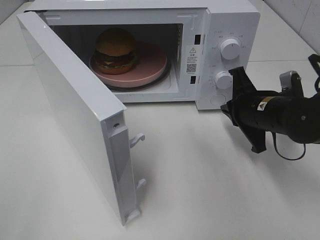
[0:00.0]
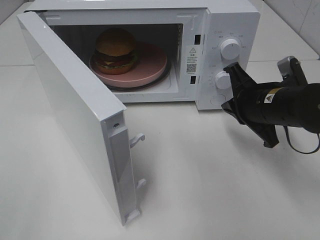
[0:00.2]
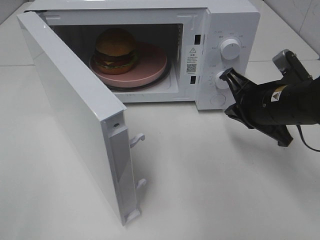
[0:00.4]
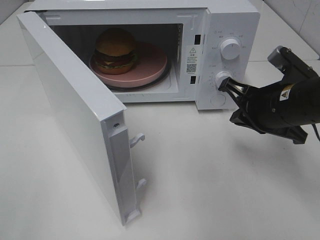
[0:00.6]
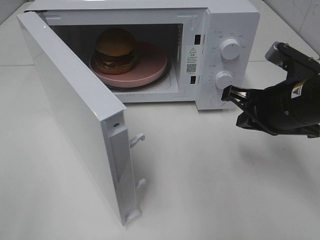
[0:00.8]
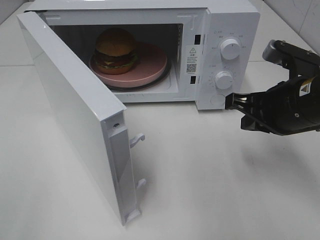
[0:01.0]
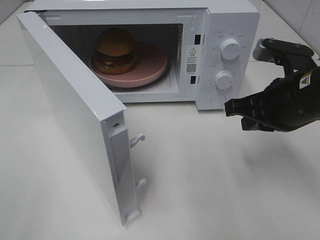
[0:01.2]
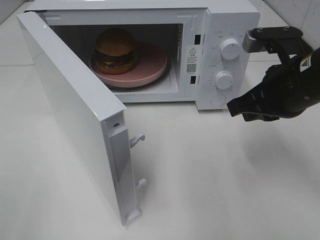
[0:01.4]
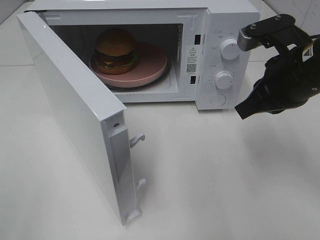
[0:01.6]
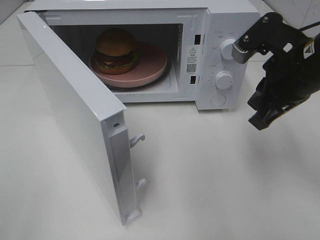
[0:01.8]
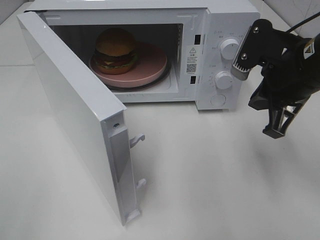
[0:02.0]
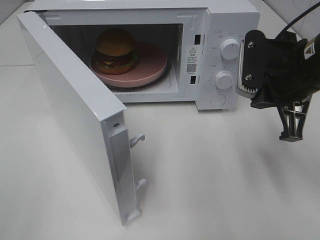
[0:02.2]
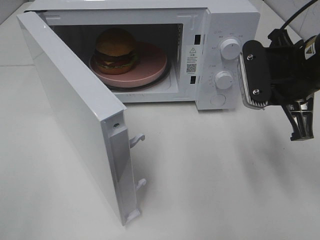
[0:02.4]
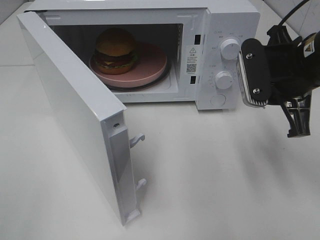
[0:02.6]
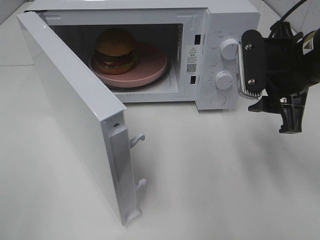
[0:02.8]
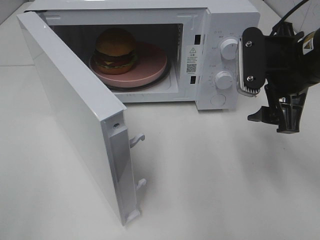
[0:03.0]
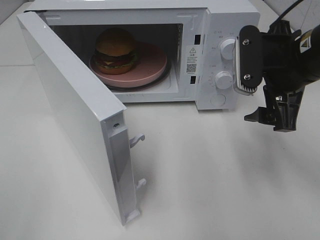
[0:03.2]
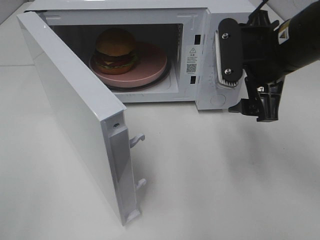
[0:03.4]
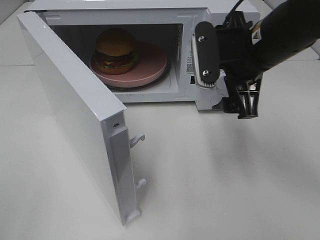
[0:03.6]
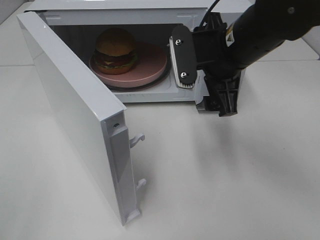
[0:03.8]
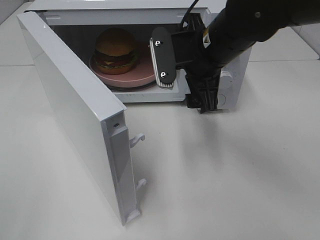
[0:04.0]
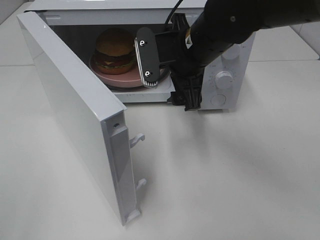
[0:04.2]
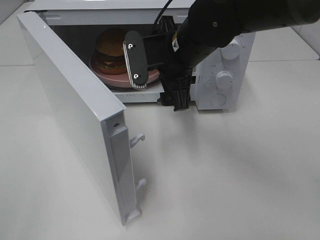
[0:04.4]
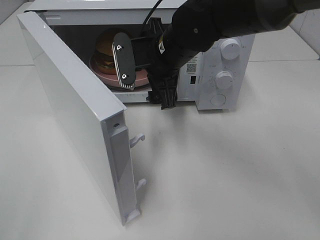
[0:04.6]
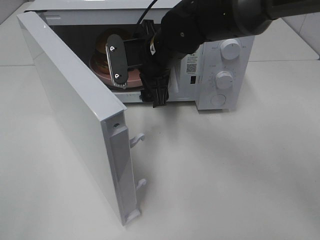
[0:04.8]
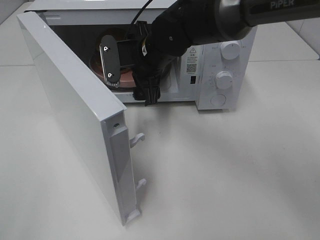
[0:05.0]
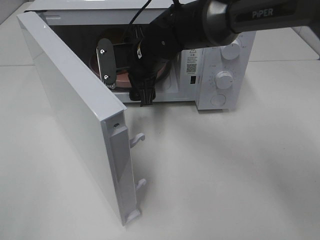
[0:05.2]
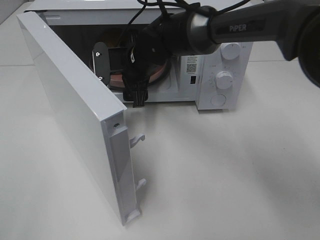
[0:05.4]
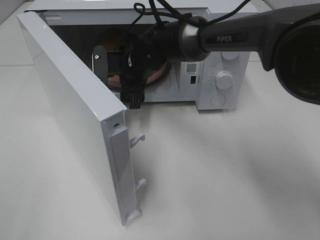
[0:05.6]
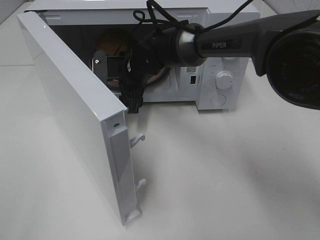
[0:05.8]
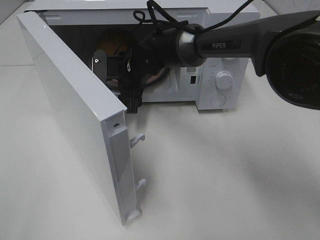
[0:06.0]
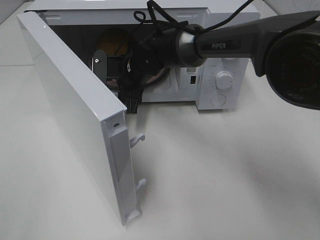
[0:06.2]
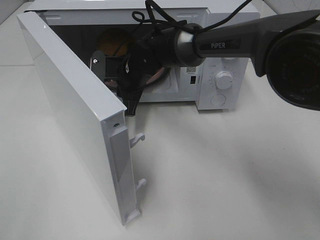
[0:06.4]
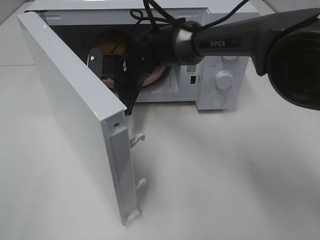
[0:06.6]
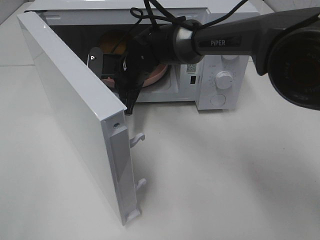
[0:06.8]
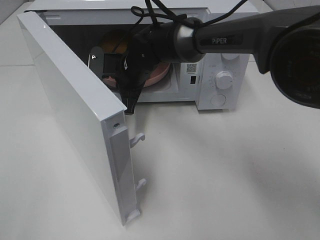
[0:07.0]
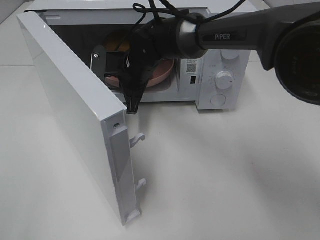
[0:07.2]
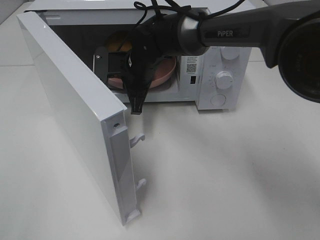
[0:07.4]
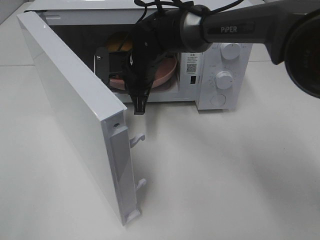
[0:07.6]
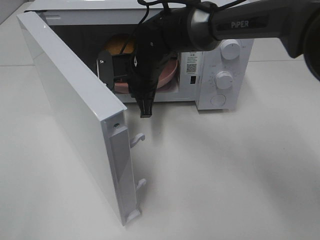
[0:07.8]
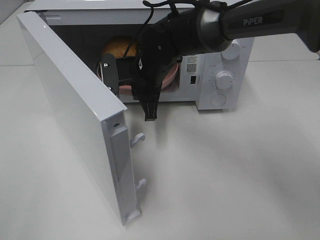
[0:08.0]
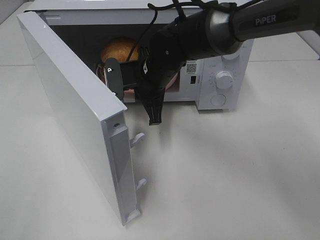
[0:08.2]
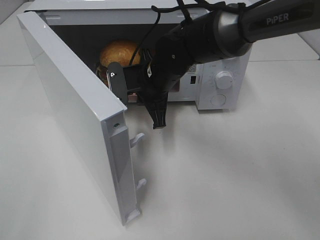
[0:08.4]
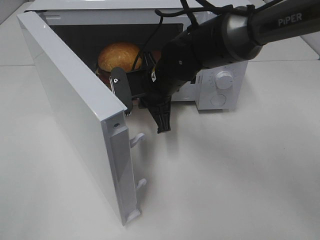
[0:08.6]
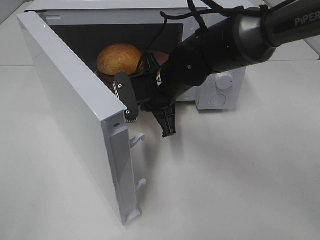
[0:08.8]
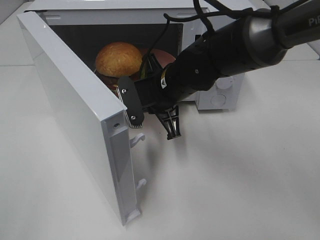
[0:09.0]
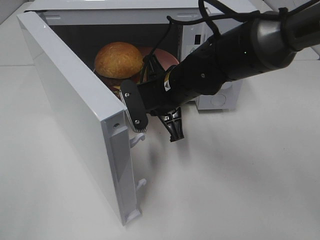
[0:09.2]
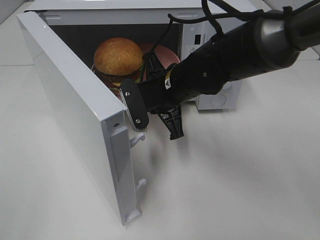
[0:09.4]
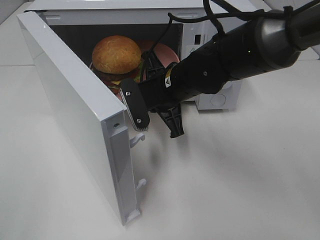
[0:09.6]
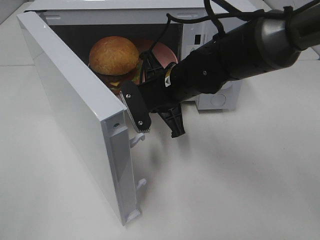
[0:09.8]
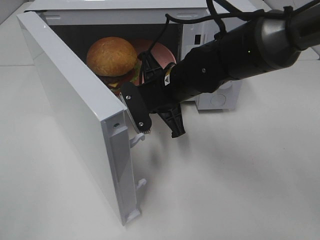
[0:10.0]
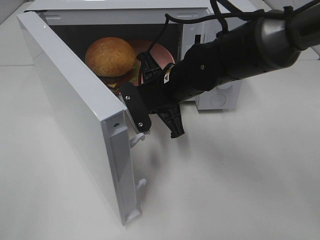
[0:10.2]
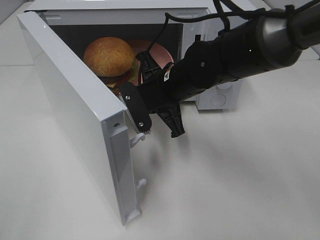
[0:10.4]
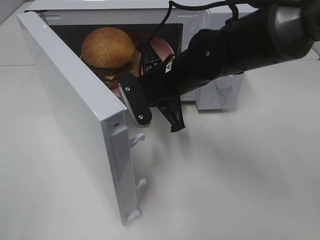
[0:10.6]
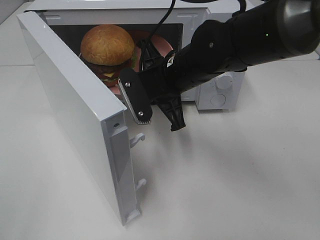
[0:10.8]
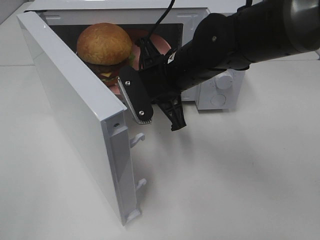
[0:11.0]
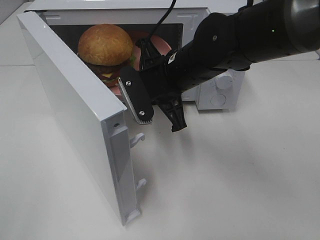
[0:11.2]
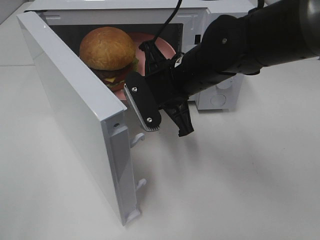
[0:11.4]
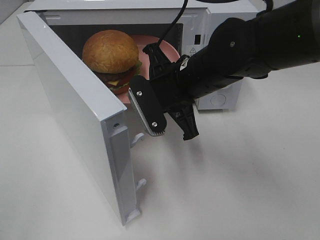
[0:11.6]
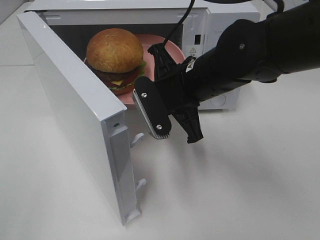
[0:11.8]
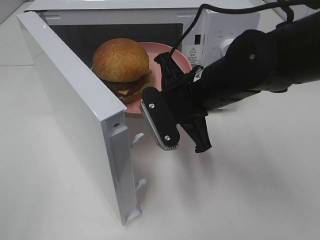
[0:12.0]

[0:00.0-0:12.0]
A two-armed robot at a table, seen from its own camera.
Task of the whole recording: Heat the burger.
Step, 0:00.0 to 0:06.8: Right hand: grab the plate with the hamburger.
0:00.0 to 0:01.6: The right gripper shifts some 10 cm upward.
0:01.6 to 0:03.0: The right gripper opens its fingers.
0:03.0 to 0:04.4: The right gripper goes about 15 cm to the left and forward.
0:04.4 to 0:06.0: The right gripper moves downward, forward and to the left, about 15 cm.
0:06.0 to 0:07.6: The right gripper closes.
0:07.6 to 0:09.0: The right gripper moves backward and to the right, some 10 cm.
0:09.0 to 0:10.4: The grippers make only small movements.
0:10.4 to 0:12.0: The right gripper is displaced backward by approximately 5 cm.

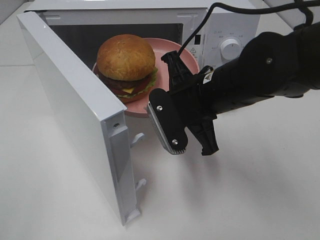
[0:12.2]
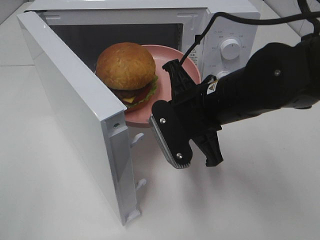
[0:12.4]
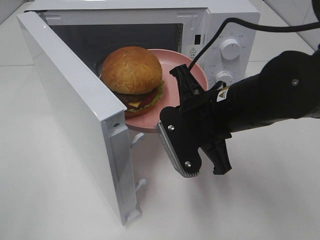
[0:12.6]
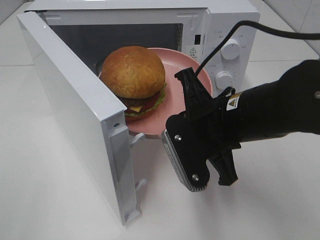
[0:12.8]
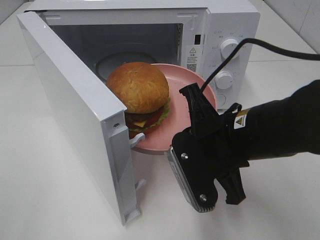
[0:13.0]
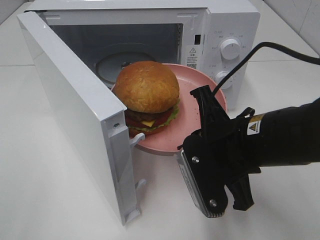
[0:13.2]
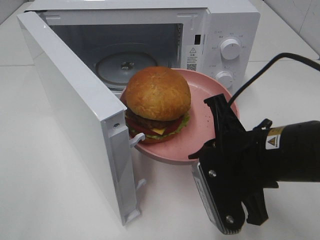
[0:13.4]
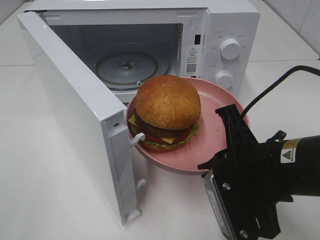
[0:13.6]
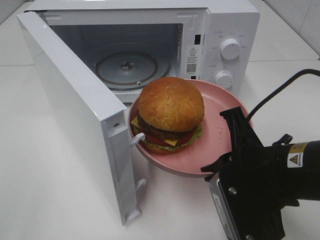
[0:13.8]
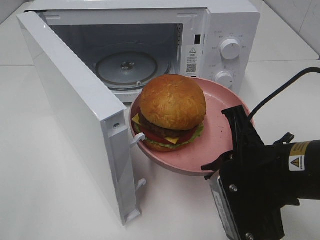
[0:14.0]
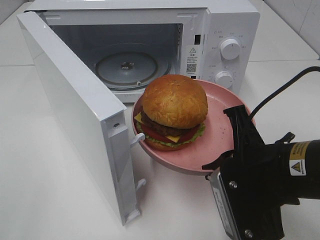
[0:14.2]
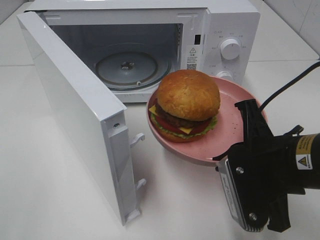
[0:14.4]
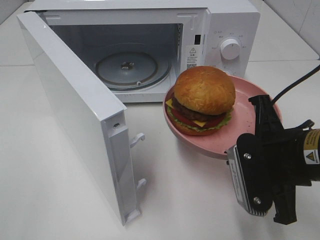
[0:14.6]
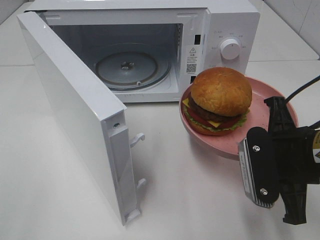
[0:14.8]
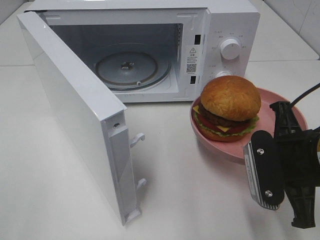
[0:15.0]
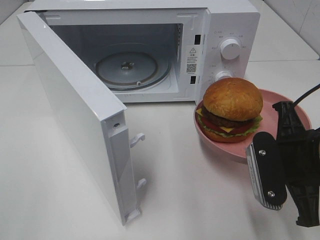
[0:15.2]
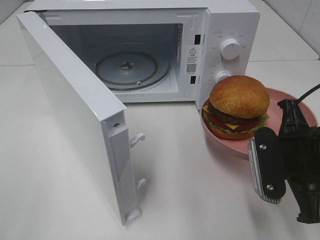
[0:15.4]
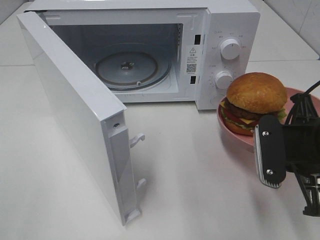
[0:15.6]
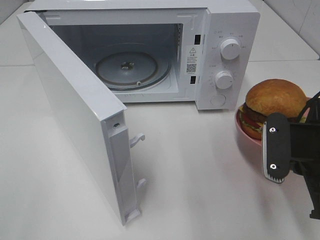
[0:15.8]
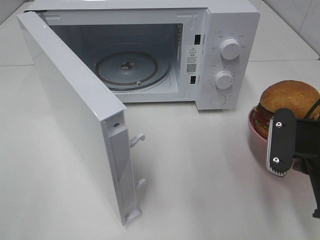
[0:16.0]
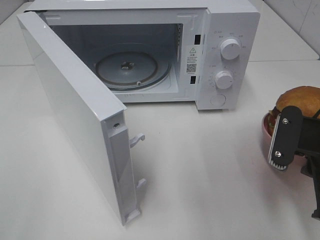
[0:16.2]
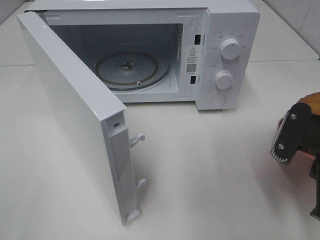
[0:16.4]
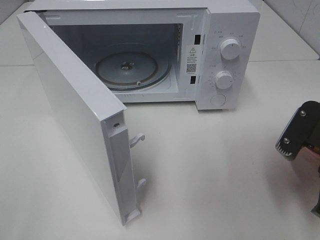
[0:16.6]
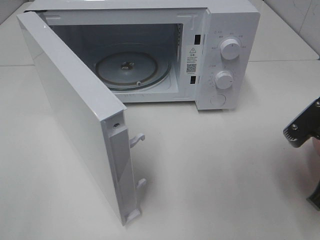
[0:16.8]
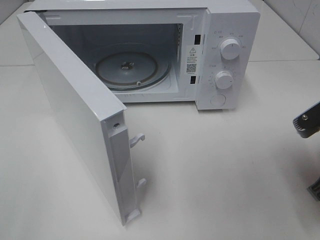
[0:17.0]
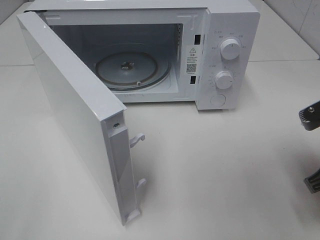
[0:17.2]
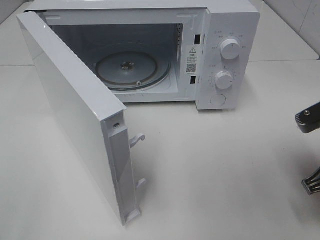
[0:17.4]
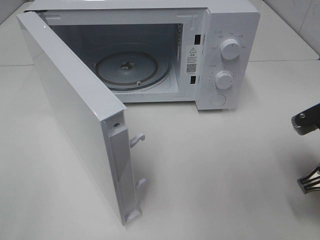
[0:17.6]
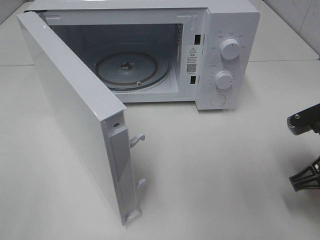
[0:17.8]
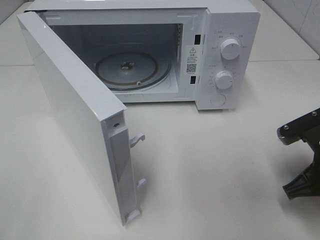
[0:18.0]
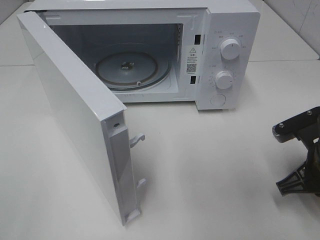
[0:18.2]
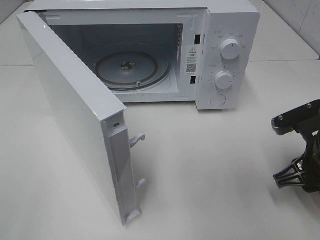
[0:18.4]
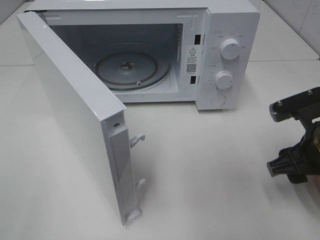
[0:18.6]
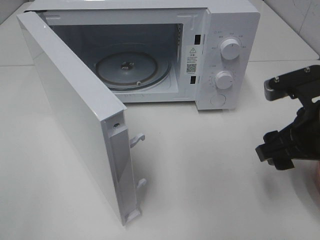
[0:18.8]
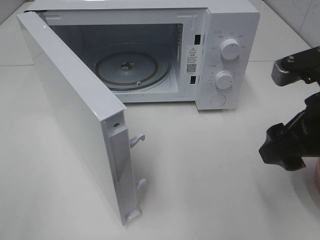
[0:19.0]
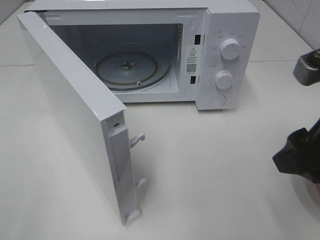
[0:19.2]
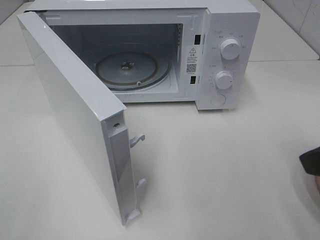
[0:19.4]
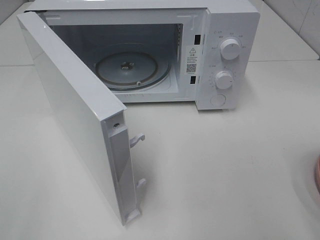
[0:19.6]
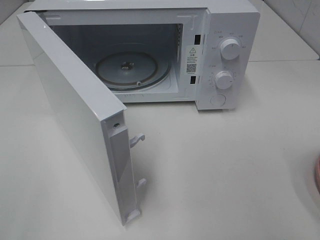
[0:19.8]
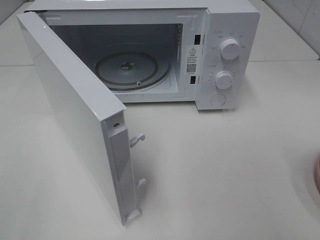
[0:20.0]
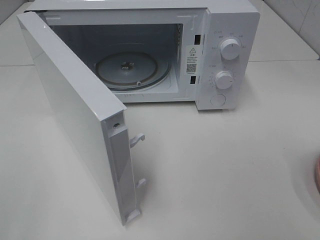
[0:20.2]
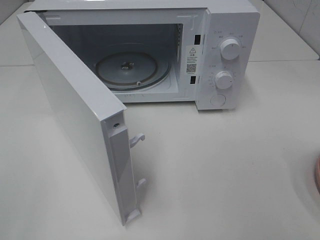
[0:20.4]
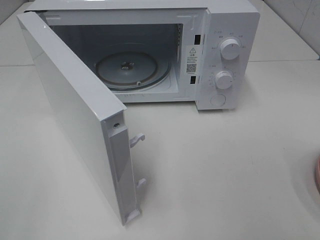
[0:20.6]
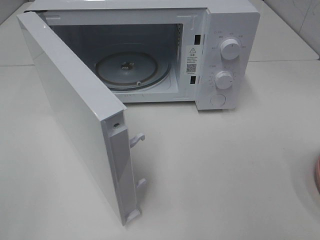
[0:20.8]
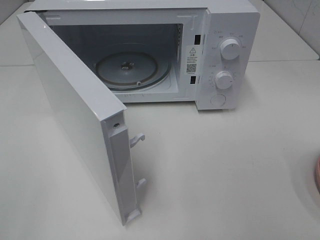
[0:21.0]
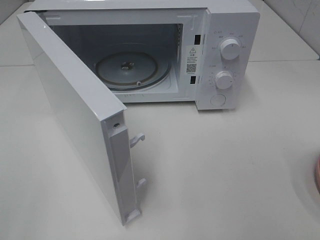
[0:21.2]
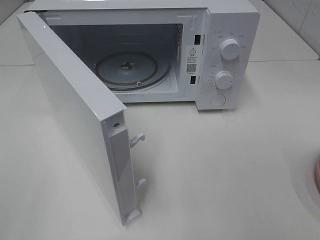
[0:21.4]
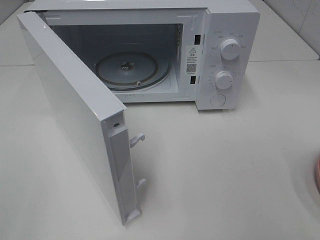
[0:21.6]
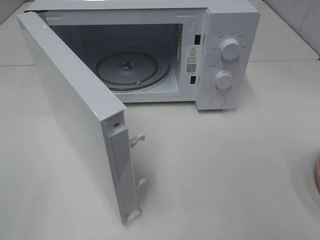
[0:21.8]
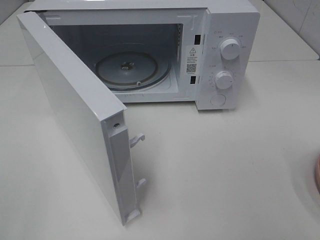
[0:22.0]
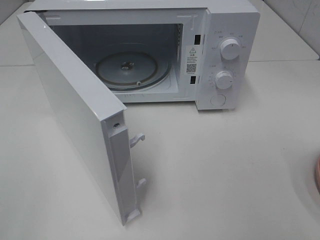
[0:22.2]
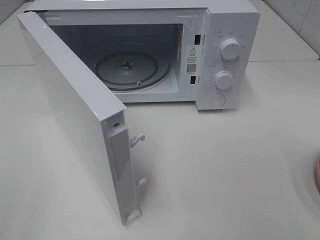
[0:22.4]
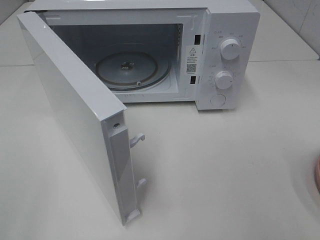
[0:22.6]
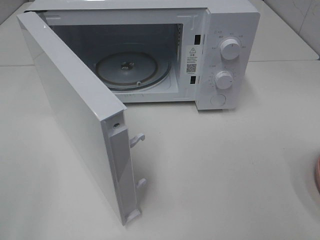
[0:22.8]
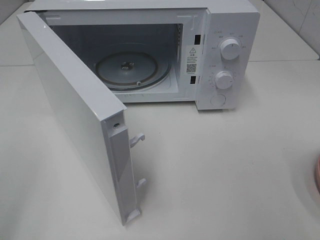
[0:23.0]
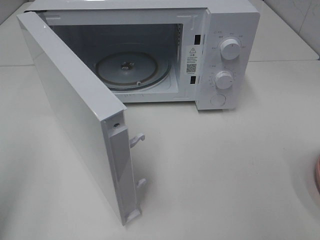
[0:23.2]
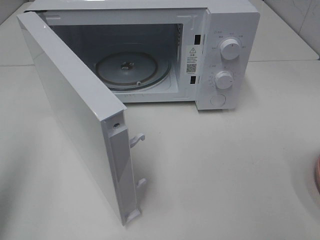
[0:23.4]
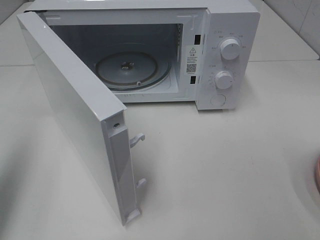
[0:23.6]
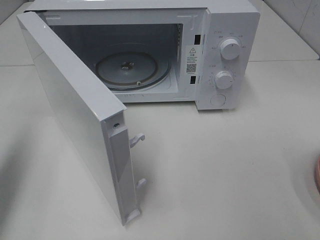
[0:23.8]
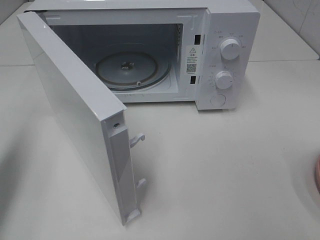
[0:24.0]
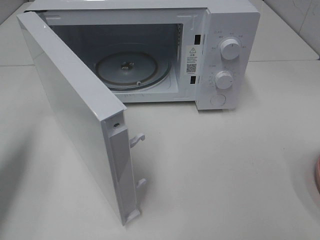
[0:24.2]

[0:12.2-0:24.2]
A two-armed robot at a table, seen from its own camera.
Task of the whole recording: Heat the burger.
Step, 0:12.2 to 0:18.2: Right hand: place the plate on the table.
0:12.2 to 0:13.8: The right gripper heads backward and to the right, covering some 15 cm.
0:13.8 to 0:15.2: The right gripper travels to the right by approximately 5 cm.
0:16.6 to 0:18.2: The right gripper travels downward by roughly 5 cm.
0:18.2 to 0:19.8: The right gripper goes approximately 25 cm upward and backward, and opens.
0:21.2 to 0:22.6: The two grippers keep their place.
0:22.6 to 0:24.2: The left gripper heads forward, covering about 20 cm, and closes up.
